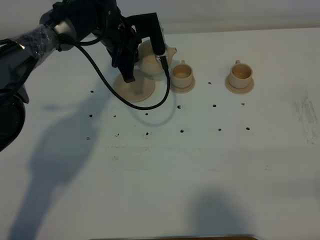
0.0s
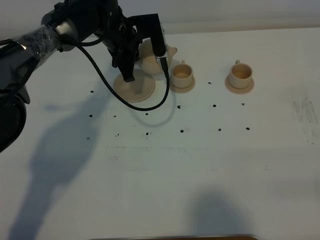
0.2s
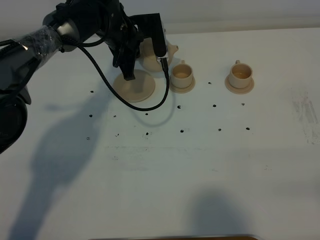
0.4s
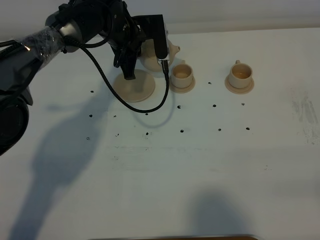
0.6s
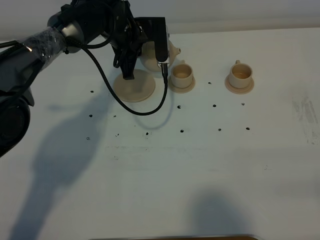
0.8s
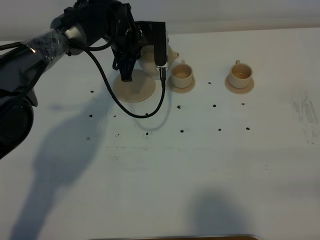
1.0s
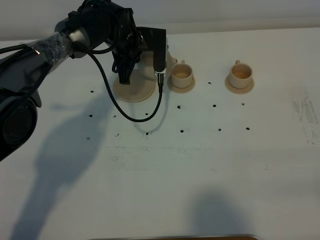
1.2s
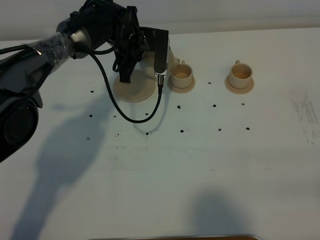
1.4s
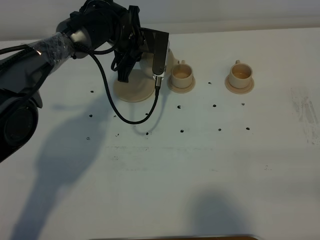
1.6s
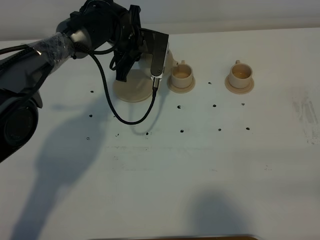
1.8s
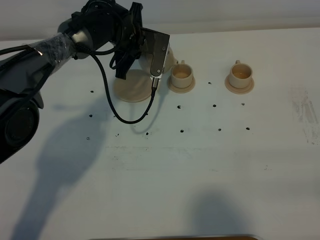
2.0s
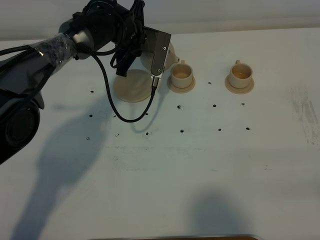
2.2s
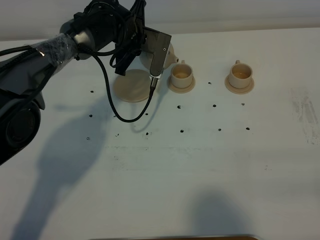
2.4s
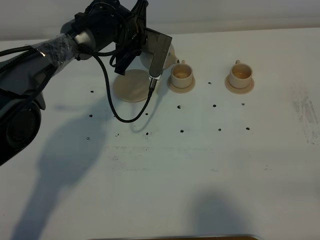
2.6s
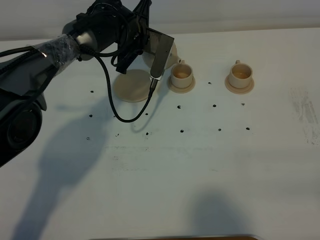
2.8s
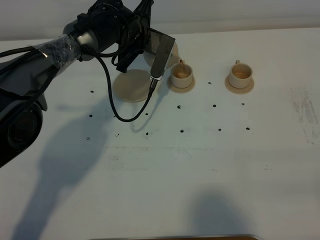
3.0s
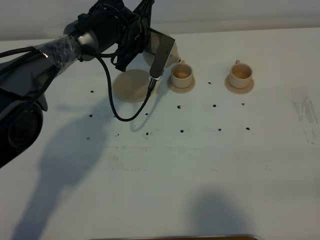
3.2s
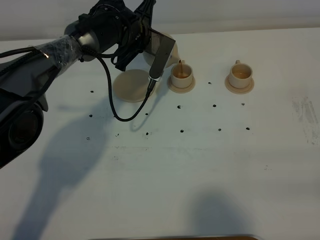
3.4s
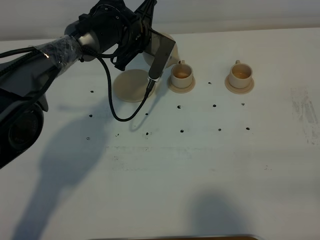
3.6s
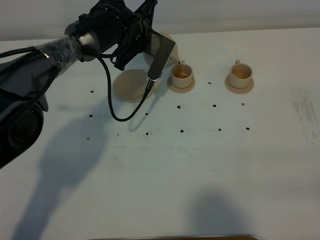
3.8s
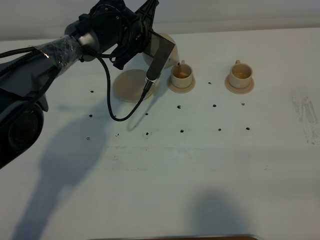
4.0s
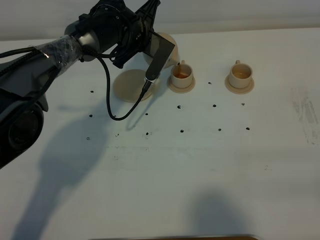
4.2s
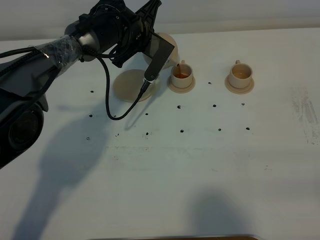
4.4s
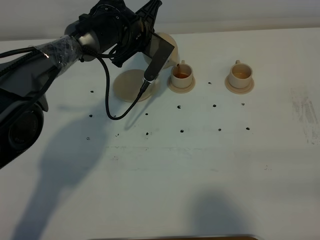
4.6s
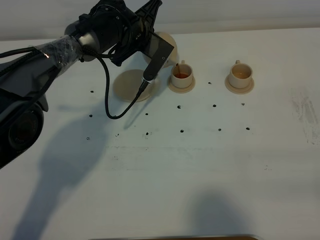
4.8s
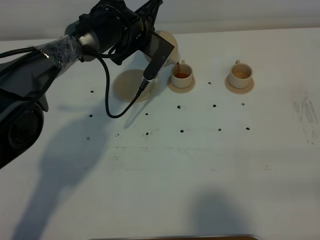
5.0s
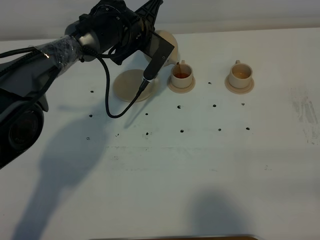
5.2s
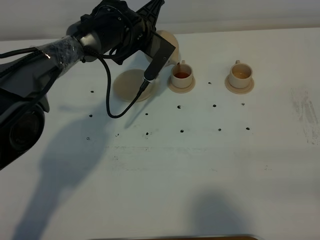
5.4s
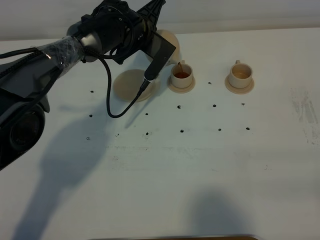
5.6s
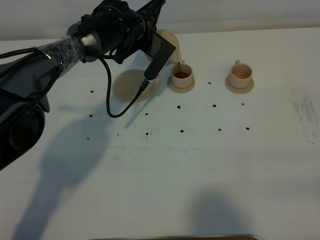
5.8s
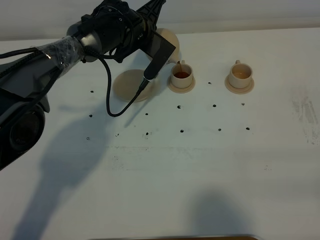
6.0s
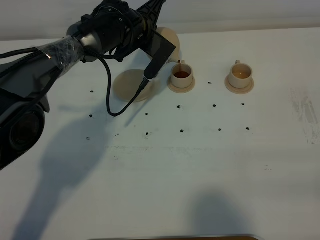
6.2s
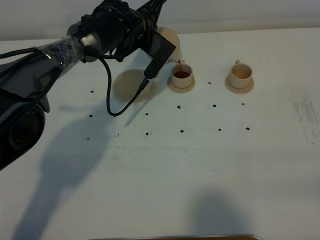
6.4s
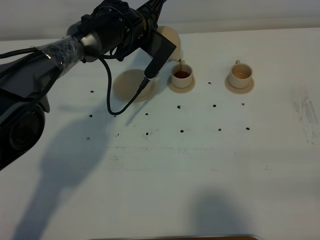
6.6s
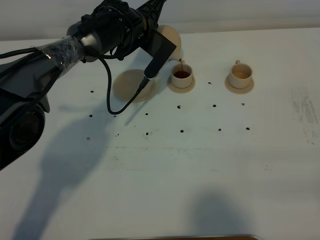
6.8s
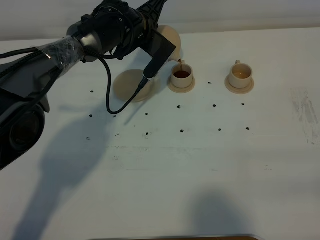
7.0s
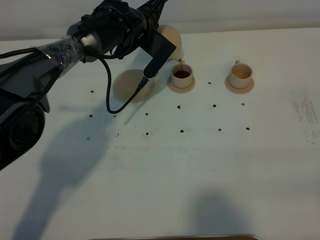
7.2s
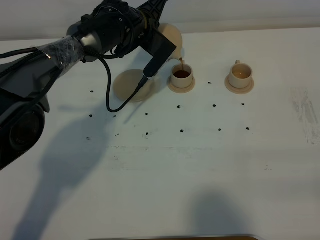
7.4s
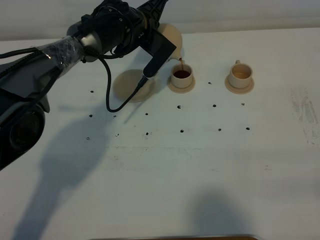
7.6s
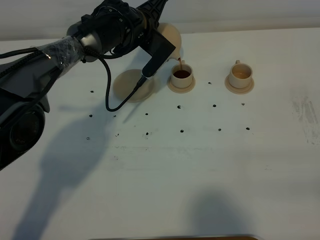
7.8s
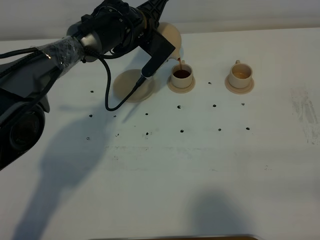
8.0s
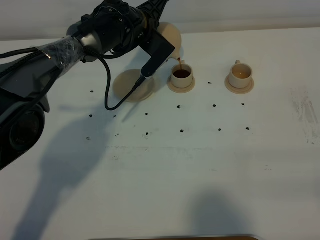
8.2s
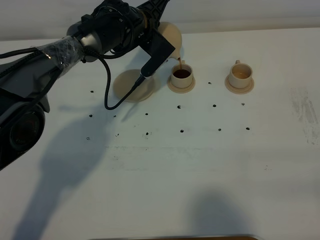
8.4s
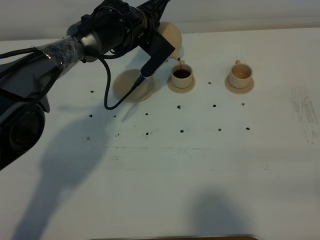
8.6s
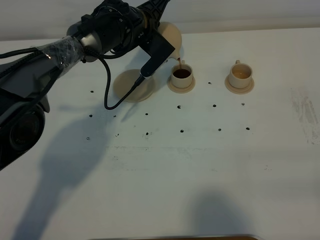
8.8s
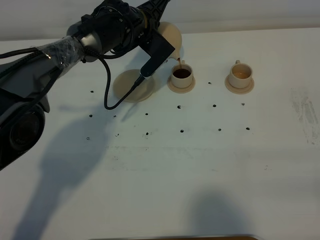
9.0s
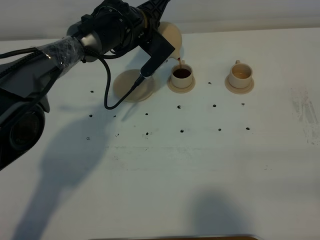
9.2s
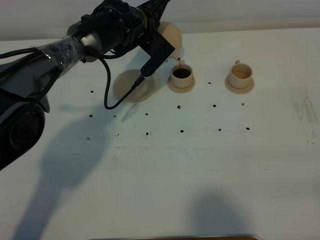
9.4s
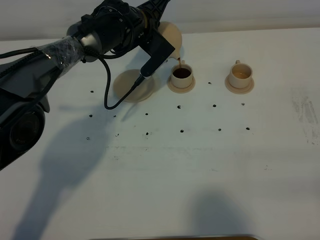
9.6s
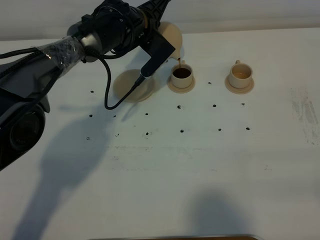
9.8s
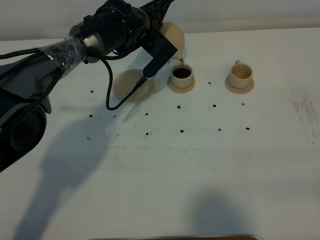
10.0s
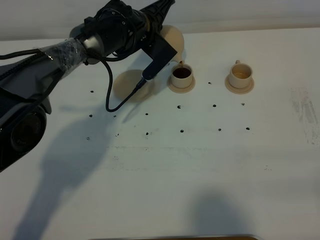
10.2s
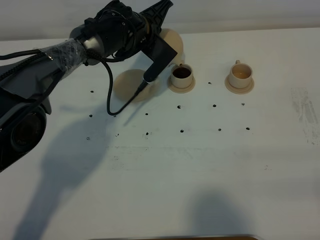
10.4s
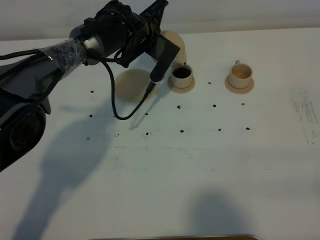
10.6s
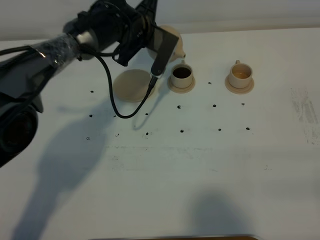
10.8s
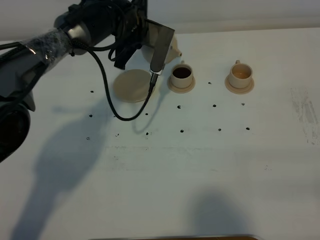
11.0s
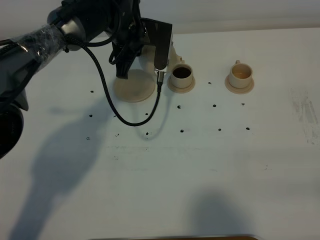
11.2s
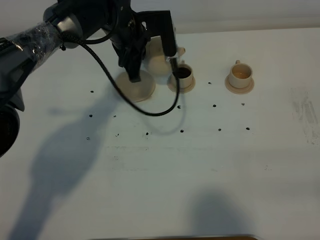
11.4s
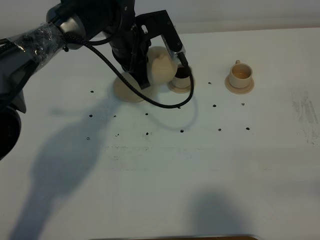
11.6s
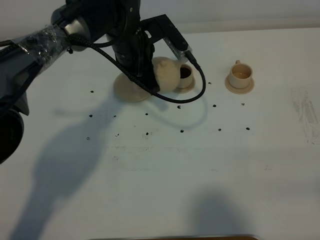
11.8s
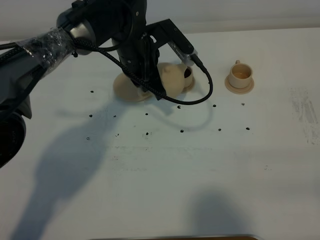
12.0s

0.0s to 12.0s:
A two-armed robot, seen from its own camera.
Task of the whole recording: grasp the brown teapot and pour the tea into the two brown teacups one by one, put the brown teapot back in its original place.
1.6s to 3.0s: The grippers move only a little.
3.0s to 6.0s: The grippers move only a little.
6.0s to 7.6s: The grippers stay close to where they were, moving slightly.
7.6s to 9.0s: Both grippers stay about where they are.
9.0s to 10.4s: The grippers stay close to where they were, moving slightly.
10.4s to 12.0s: The left gripper travels backward by about 10 cm.

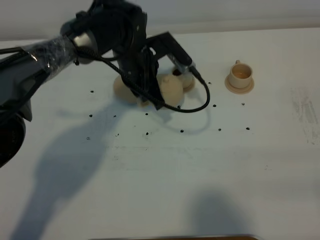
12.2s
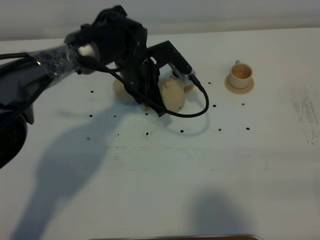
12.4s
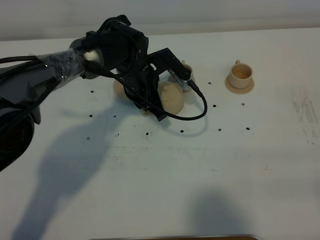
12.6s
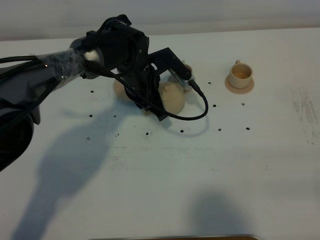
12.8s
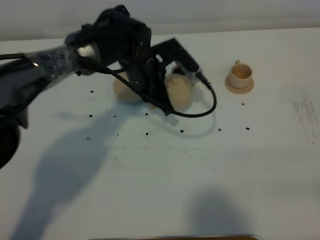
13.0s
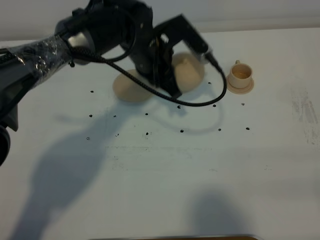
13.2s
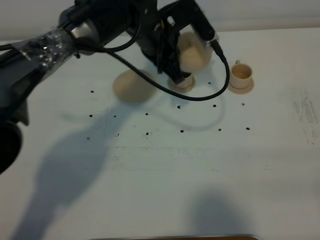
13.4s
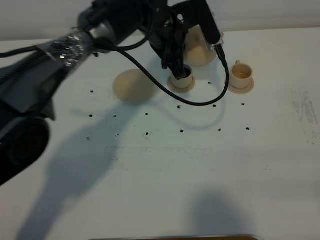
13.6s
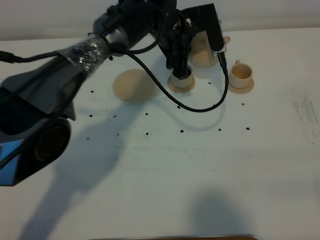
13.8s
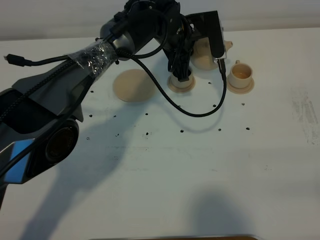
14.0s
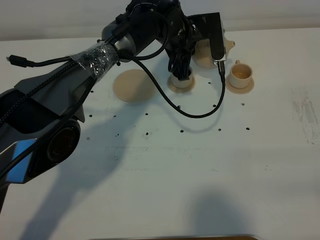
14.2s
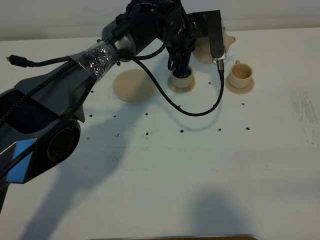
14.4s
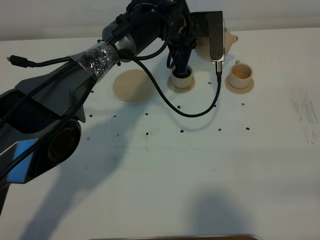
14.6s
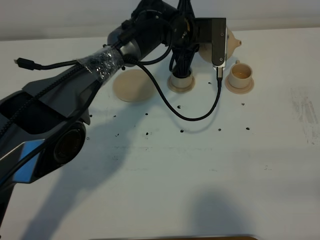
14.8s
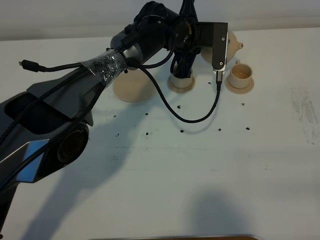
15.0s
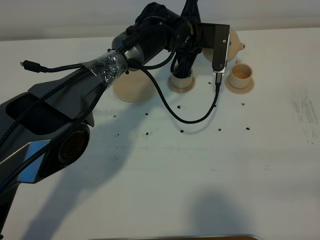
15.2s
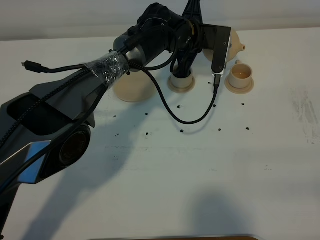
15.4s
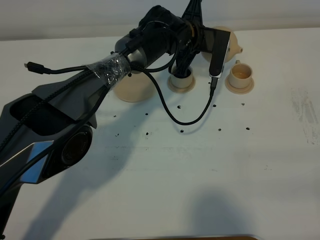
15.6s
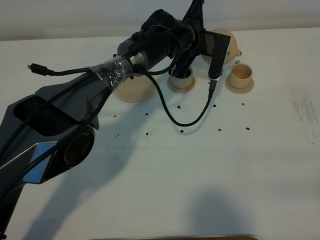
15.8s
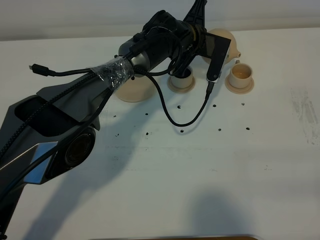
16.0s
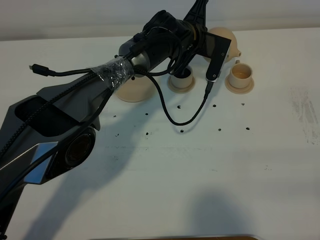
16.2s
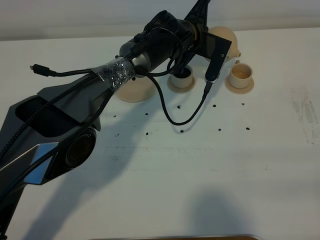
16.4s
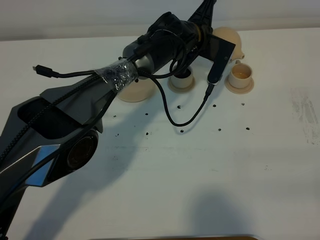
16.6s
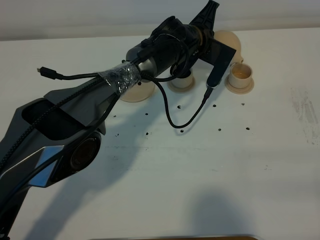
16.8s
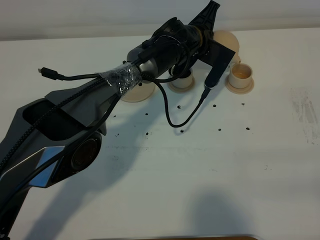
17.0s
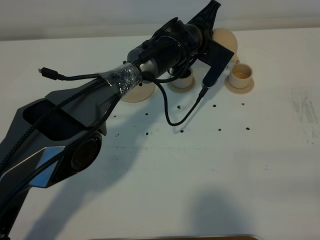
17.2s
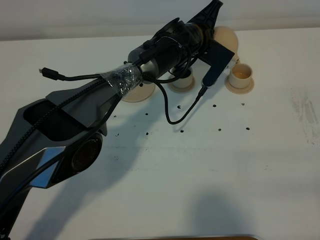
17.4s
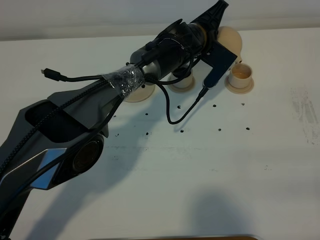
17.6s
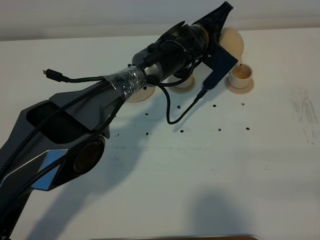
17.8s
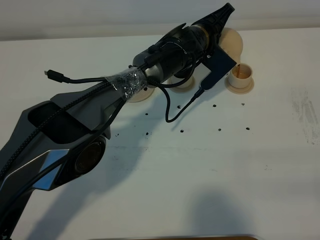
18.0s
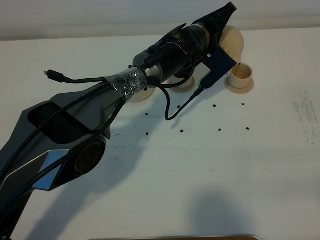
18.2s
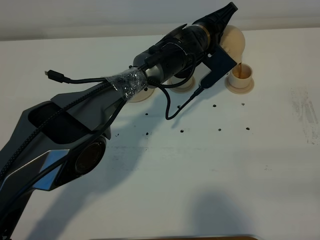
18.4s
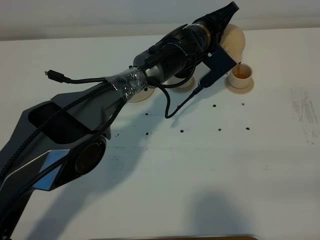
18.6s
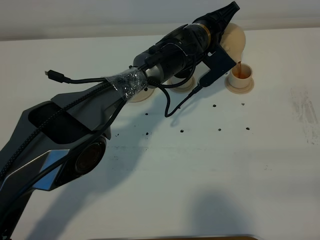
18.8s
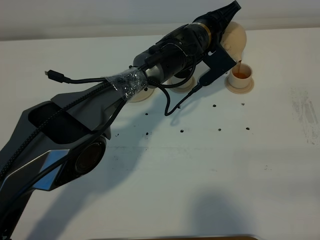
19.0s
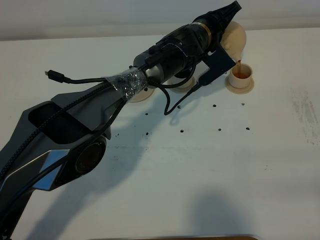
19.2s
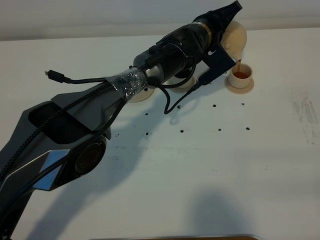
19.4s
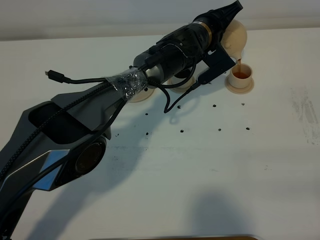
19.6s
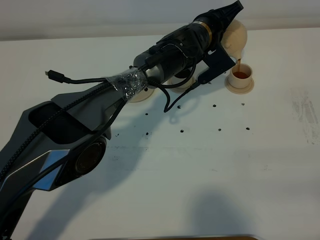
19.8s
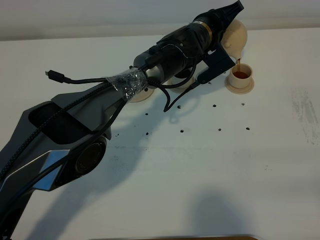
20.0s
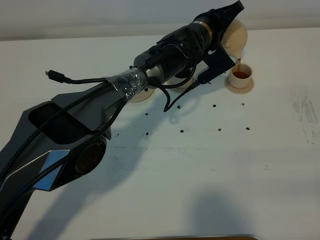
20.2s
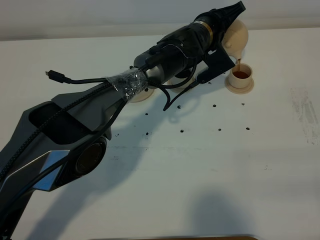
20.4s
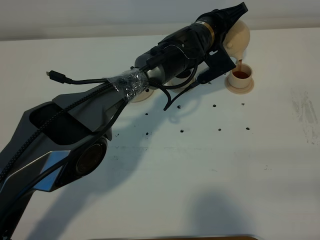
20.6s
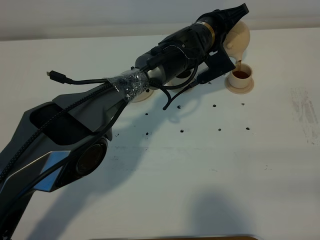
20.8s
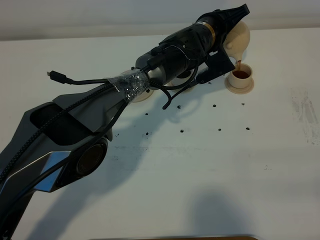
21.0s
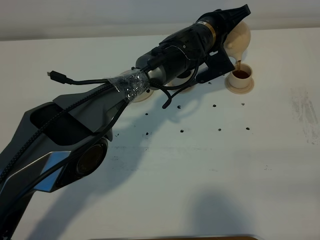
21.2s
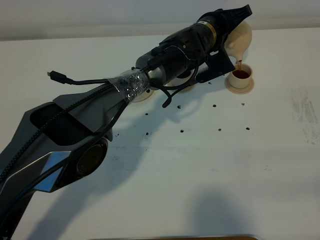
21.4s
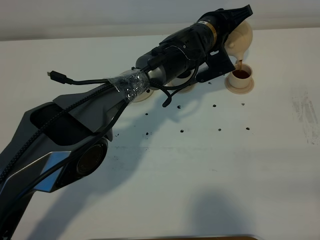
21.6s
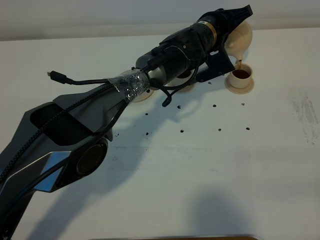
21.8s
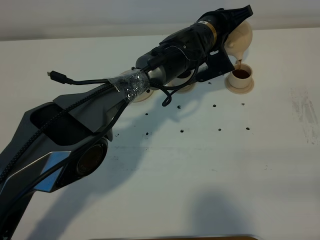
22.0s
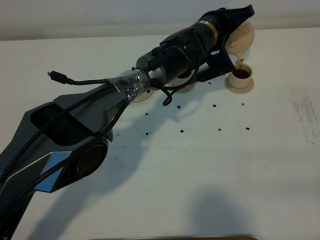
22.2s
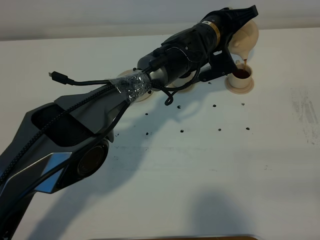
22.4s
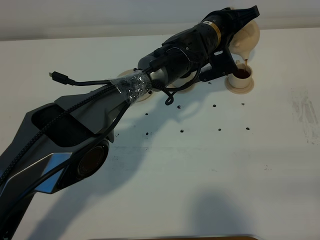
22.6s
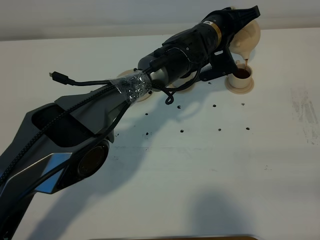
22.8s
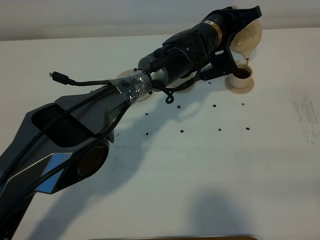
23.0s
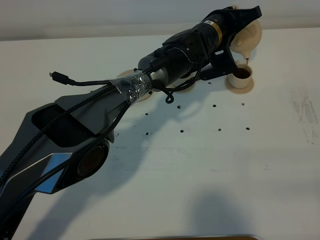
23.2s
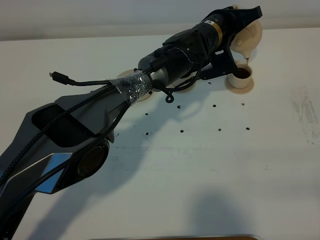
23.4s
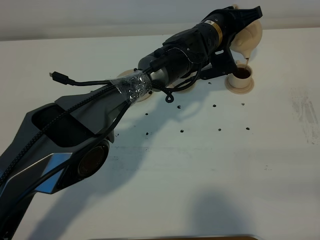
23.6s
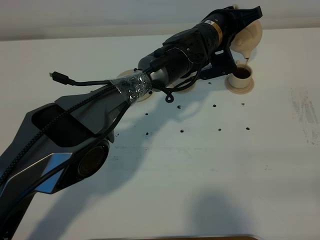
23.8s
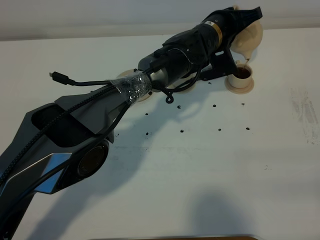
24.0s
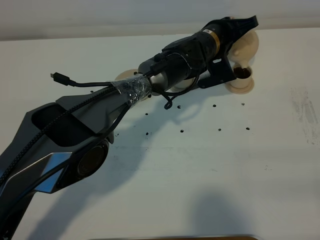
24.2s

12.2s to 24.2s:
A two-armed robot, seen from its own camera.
Task of the whole recording: grasp the brown teapot and pour the tea into the two brown teacups one by one, put the brown teapot back in its original place.
12.2s to 13.8s: The left gripper is displaced to the right by some 5 cm, and travels upward and back again, approximately 5 cm each way.
18.2s to 21.2s: There are only small adjustments of the grippers.
21.2s to 24.2s: The grippers stay close to where they were, moving slightly.
